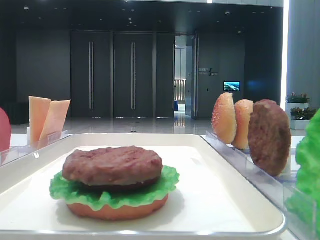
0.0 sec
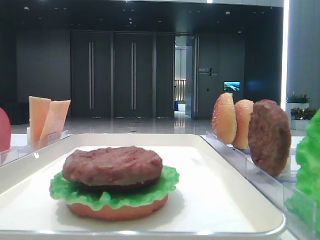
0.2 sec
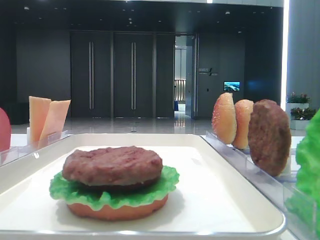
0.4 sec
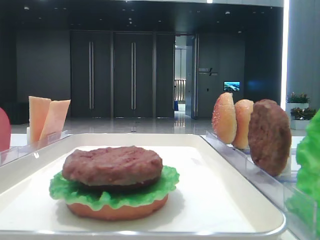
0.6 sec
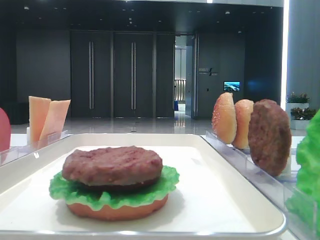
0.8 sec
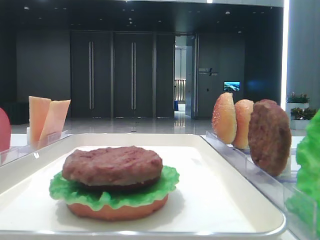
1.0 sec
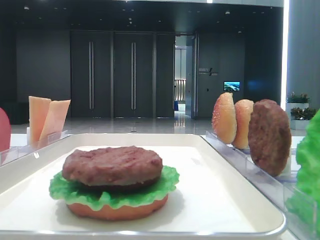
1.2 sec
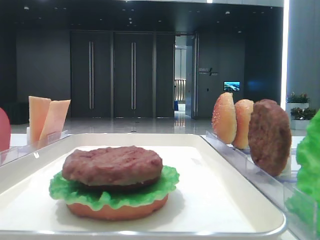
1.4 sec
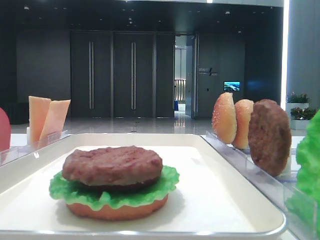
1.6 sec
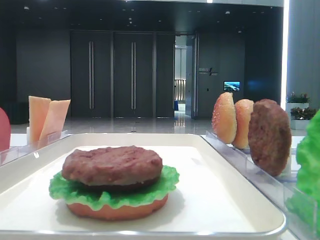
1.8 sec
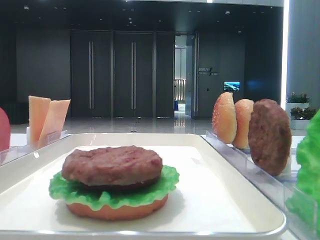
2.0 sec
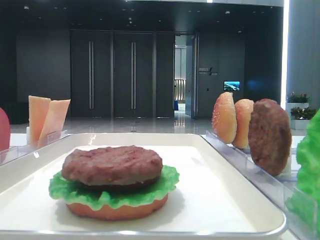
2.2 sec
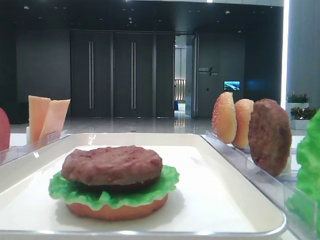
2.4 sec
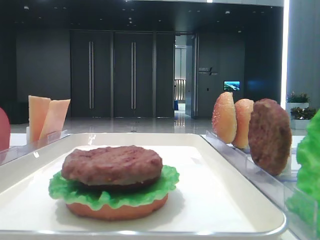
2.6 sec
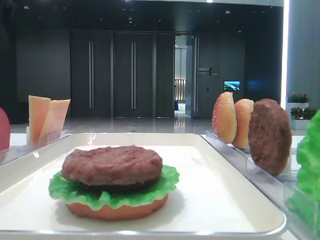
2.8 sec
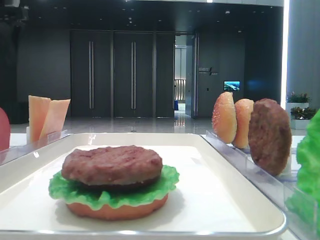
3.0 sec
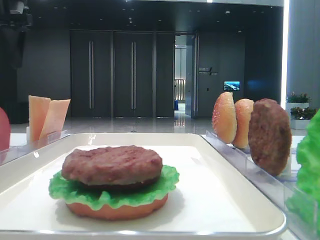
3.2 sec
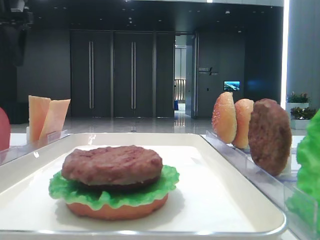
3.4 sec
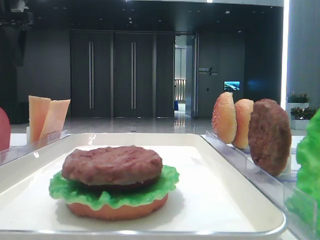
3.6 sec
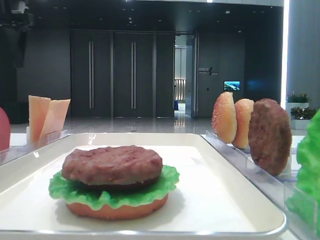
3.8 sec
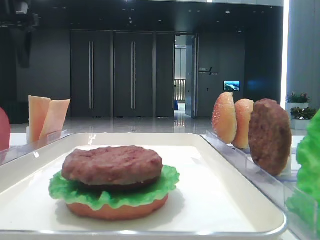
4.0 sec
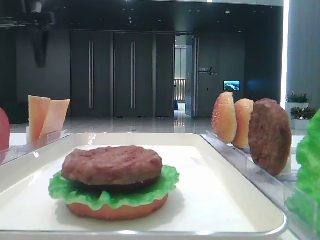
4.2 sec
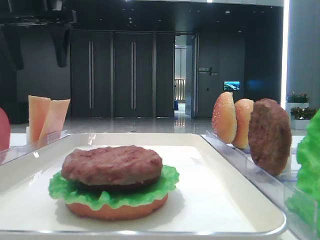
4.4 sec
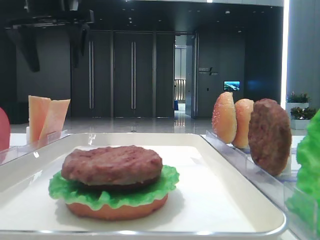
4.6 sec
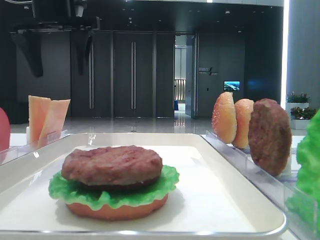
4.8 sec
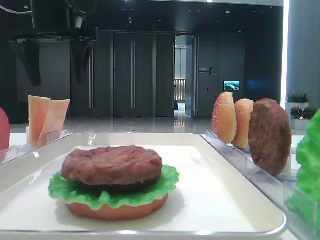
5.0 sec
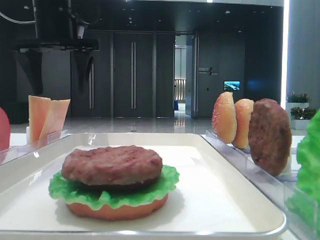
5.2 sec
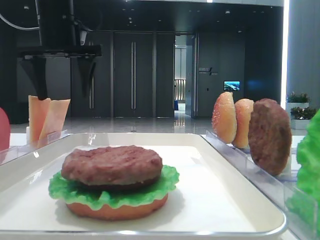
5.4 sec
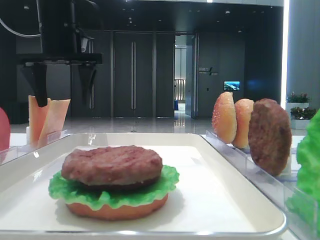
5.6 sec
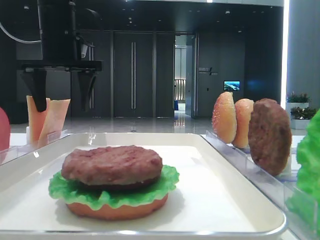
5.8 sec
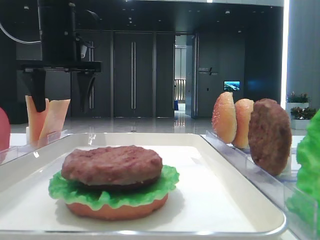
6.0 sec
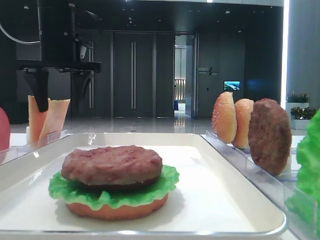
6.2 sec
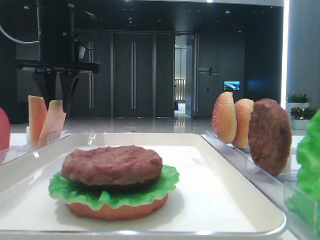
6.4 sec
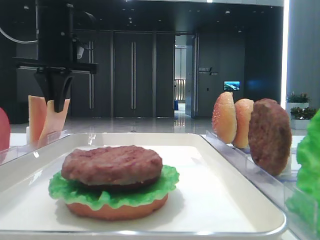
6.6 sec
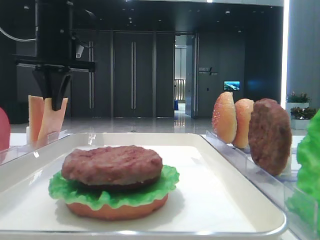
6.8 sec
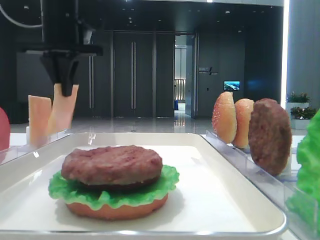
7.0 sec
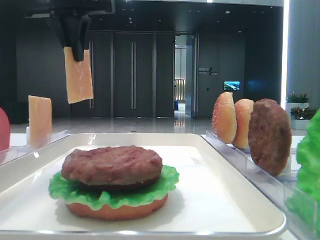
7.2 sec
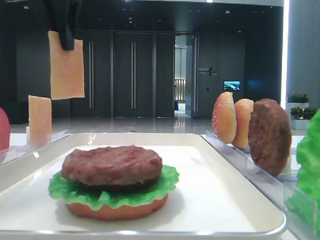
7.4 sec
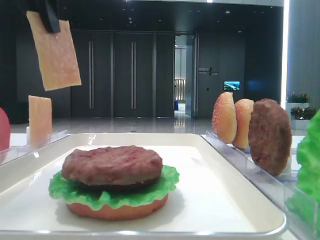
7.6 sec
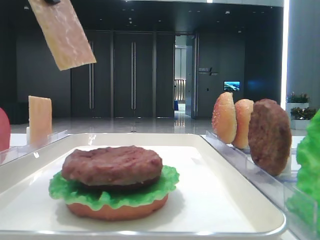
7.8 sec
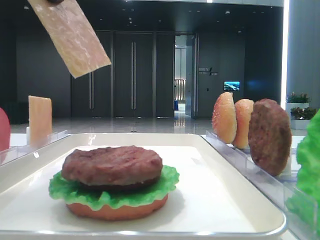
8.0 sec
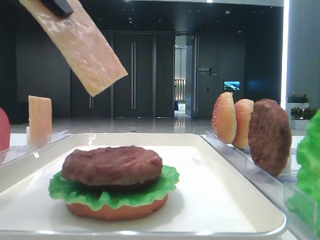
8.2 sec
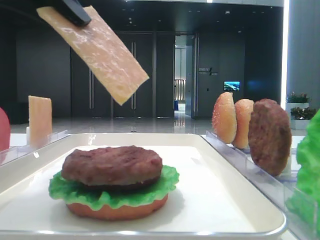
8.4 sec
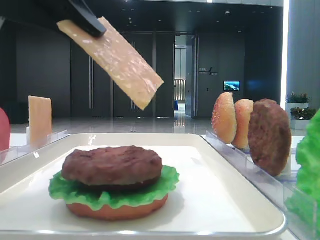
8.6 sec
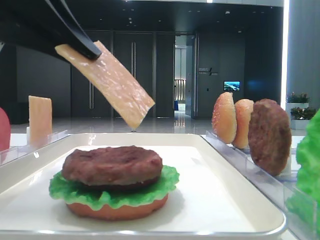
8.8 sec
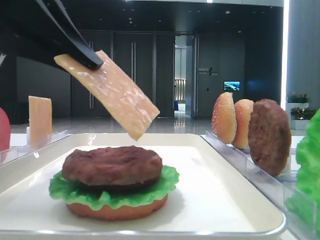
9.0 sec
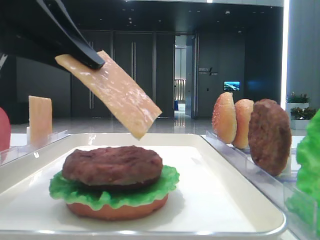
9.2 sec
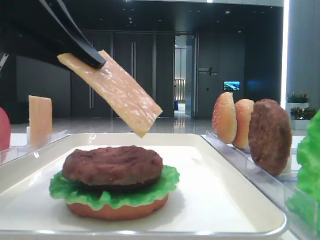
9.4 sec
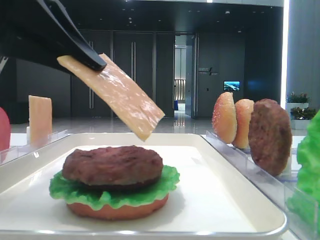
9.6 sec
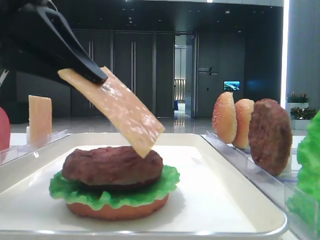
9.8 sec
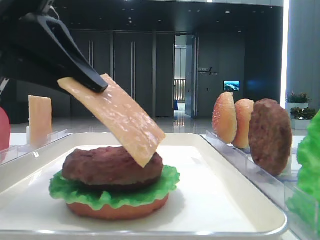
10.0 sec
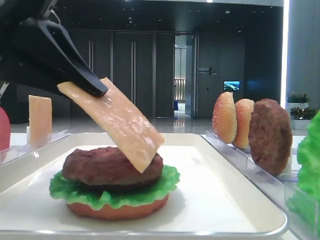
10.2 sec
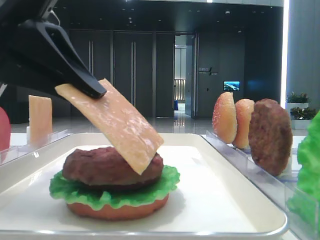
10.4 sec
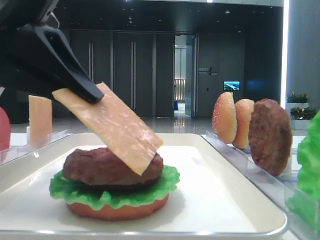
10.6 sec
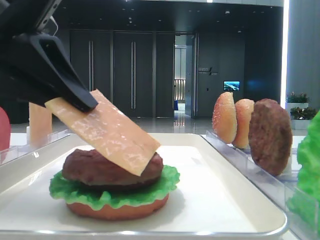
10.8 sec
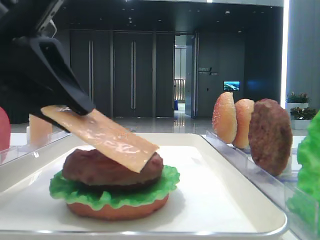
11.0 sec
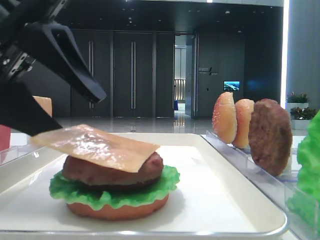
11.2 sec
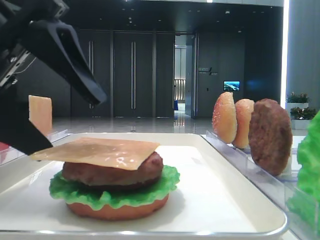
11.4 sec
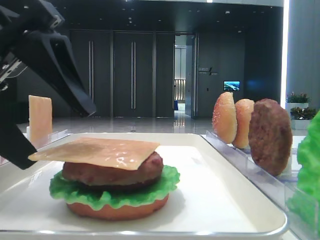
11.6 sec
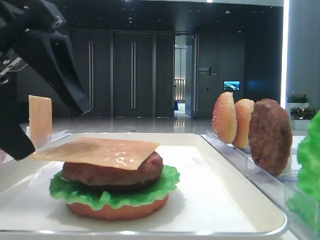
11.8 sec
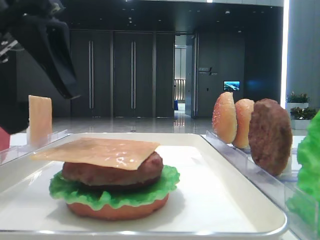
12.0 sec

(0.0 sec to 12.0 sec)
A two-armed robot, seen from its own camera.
Step, 0.0 sec - 6.8 sec: Pick up the cheese slice with the left hand.
Step, 7.0 sec - 11.2 sec: Place the cheese slice on the patty with the left hand.
1.6 sec - 3.0 sec: The left gripper goes some 30 cm forward.
3.0 sec - 4.4 sec: The left gripper shifts approximately 10 cm to the right.
4.4 sec - 6.0 sec: The left gripper travels downward by some 5 cm.
6.0 sec - 7.6 sec: The left gripper moves backward and upward, roughly 15 cm, and closes its fingers.
7.6 sec - 9.0 sec: The left gripper heads downward and backward, covering some 15 cm.
9.0 sec - 10.4 sec: The grippers make only small movements.
10.4 sec - 12.0 sec: The left gripper opens.

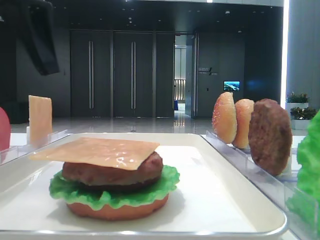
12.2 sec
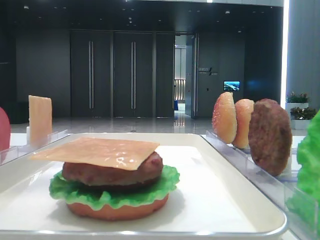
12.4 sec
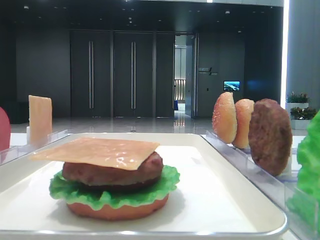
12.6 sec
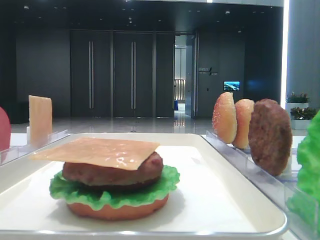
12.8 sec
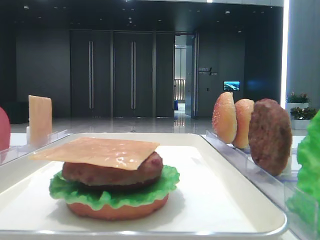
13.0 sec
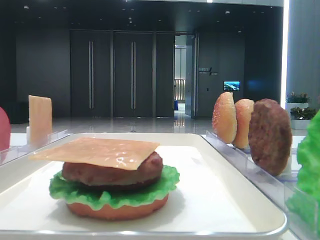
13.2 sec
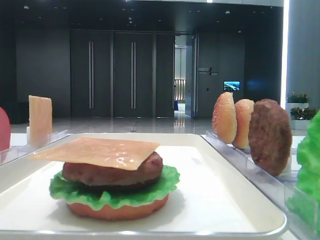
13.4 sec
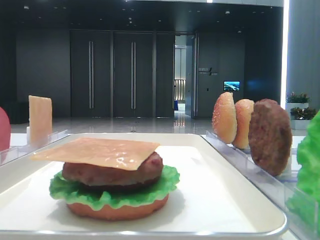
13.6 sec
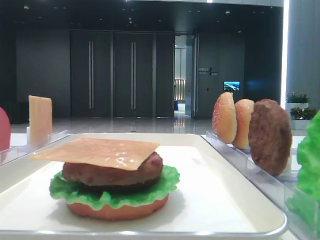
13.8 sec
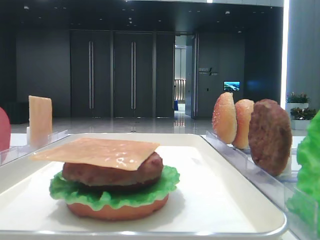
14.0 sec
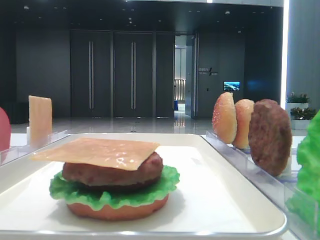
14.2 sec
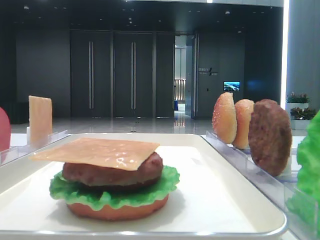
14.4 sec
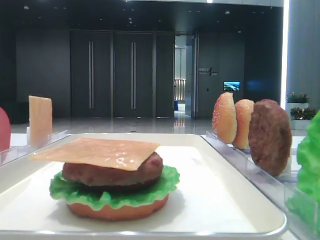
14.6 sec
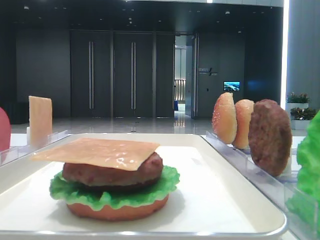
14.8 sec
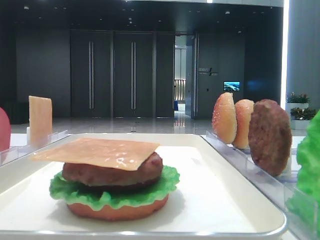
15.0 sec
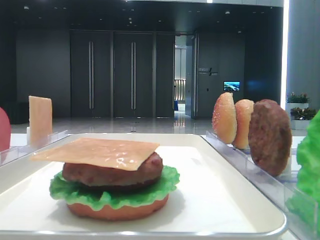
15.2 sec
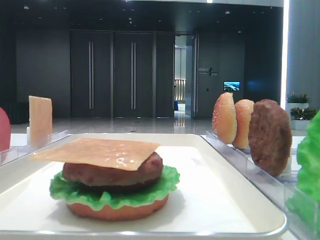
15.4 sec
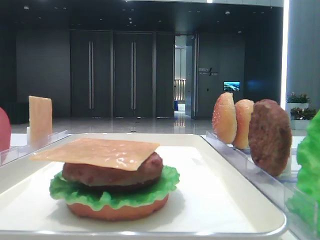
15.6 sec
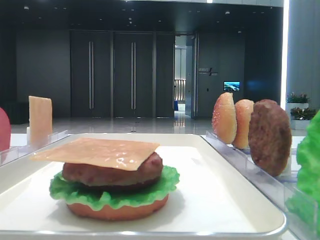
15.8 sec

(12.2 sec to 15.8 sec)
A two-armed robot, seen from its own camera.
12.2 sec - 14.0 sec: The left gripper shifts about 20 cm backward and to the left.

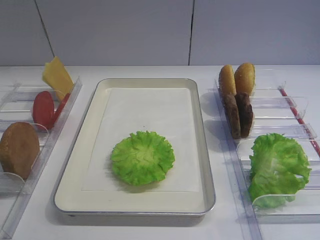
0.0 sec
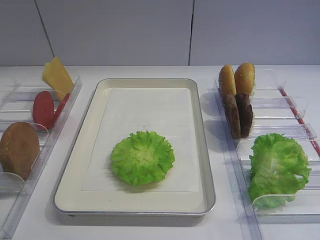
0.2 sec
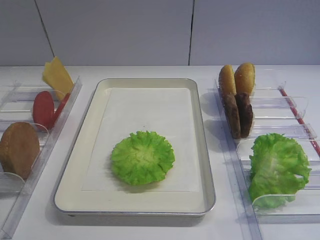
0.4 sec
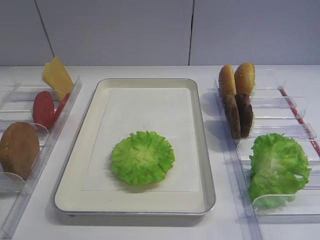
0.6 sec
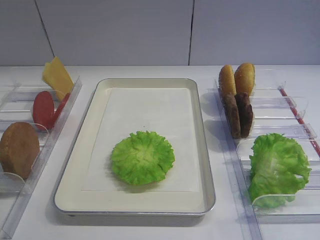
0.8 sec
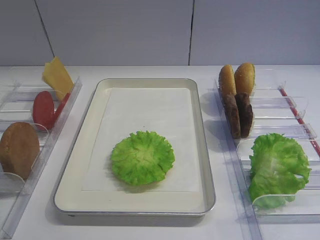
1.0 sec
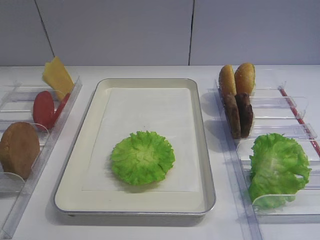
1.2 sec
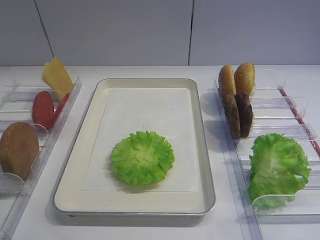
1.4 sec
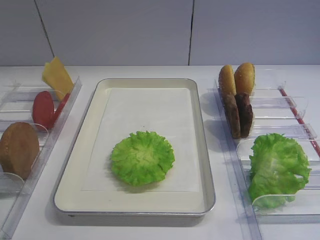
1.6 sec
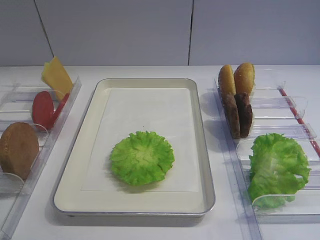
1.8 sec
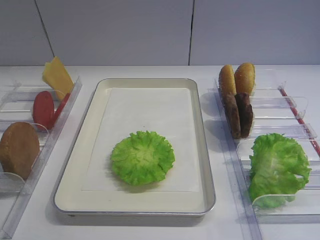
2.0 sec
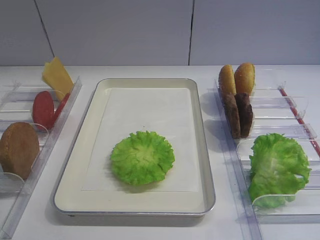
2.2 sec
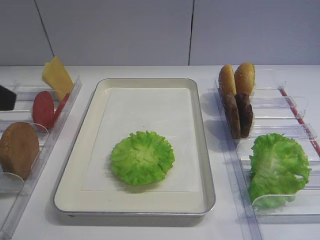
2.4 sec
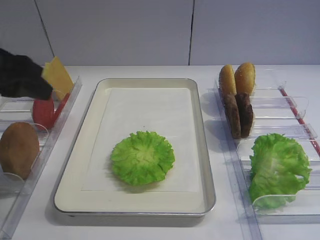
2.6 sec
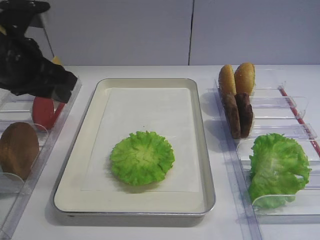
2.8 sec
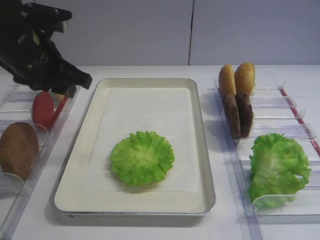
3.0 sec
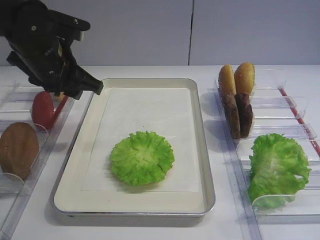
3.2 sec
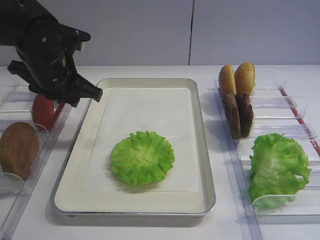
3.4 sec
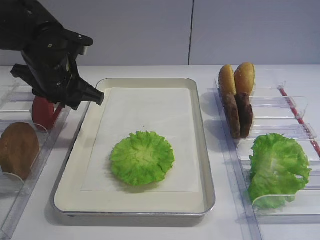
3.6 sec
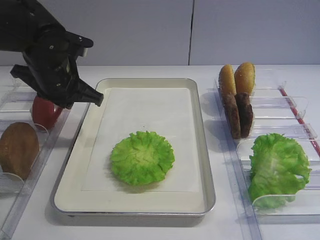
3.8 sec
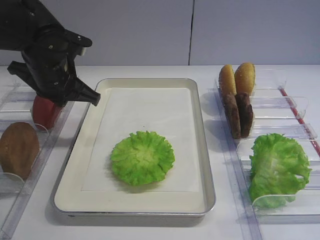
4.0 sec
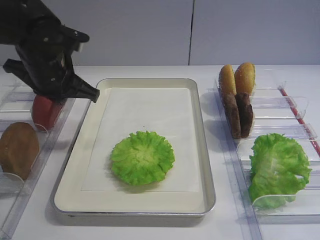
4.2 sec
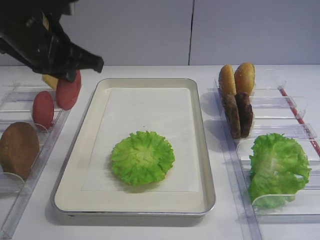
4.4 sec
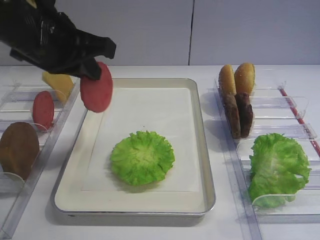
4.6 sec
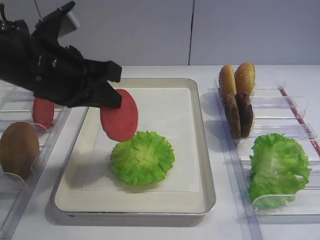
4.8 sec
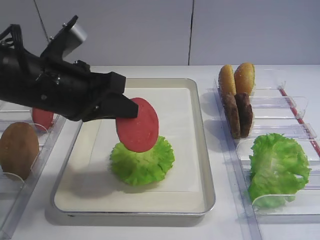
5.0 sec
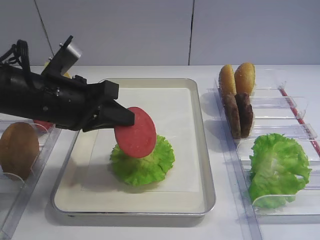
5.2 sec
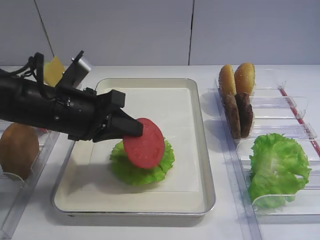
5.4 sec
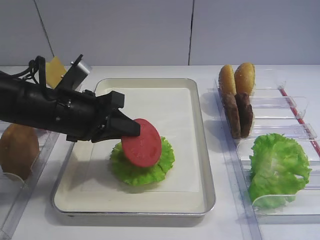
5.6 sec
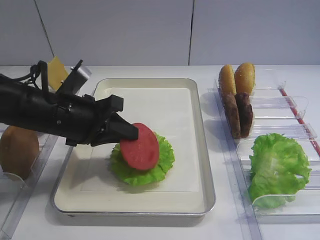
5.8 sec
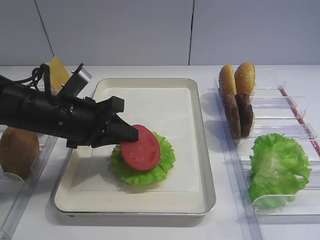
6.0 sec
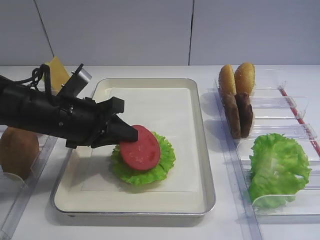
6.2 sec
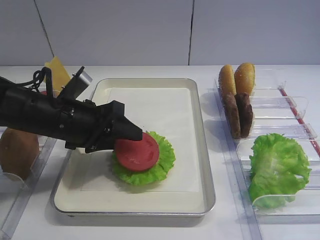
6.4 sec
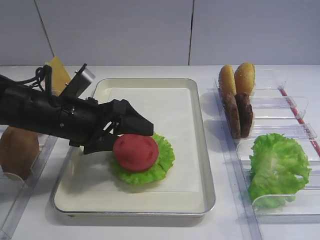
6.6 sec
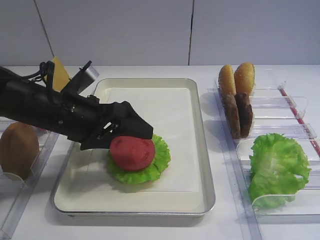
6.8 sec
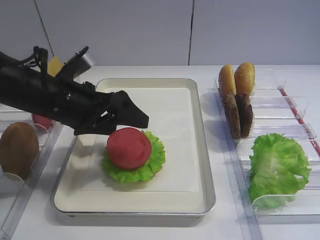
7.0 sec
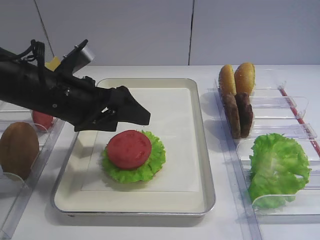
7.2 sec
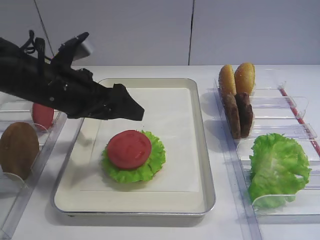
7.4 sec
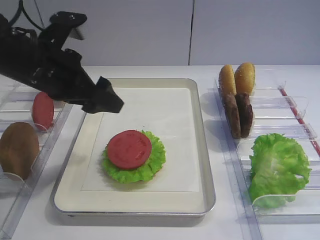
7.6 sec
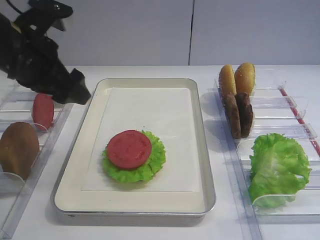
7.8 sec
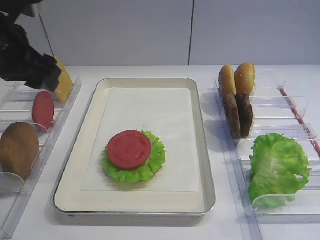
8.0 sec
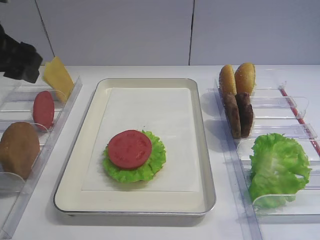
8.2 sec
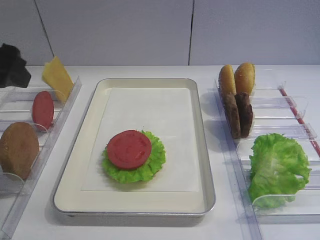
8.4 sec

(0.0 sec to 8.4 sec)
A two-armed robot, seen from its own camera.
Step, 0.0 sec - 4.2 sec: Pick up the tomato slice with the left gripper.
Step, 4.4 sec - 7.4 sec: Place the tomato slice on the lettuce leaf with the left gripper.
1.4 sec - 2.8 sec: The left gripper heads forward, covering some 30 cm.
2.8 sec - 4.2 sec: The left gripper shifts approximately 10 cm forward and downward, and closes up.
4.2 sec - 5.6 sec: The left gripper shifts approximately 10 cm backward, and moves about 10 cm upward and comes back.
5.6 sec - 7.0 sec: The left gripper opens its fingers.
7.0 sec - 8.4 sec: The left gripper shifts approximately 15 cm upward, to the left and backward.
